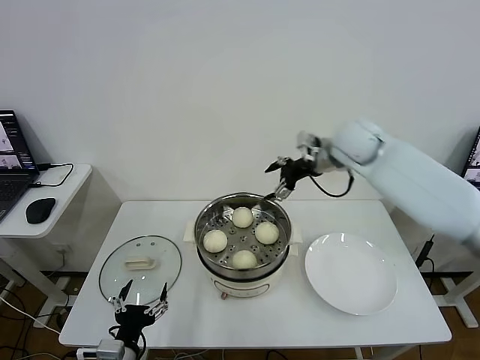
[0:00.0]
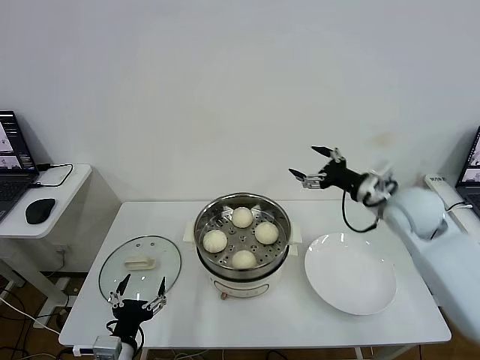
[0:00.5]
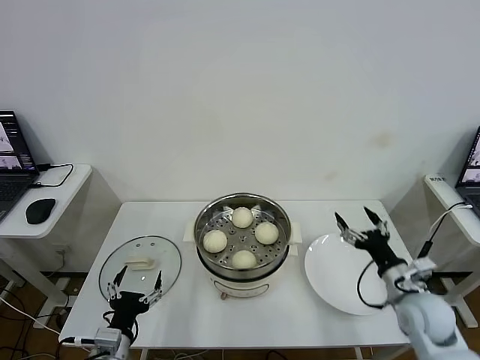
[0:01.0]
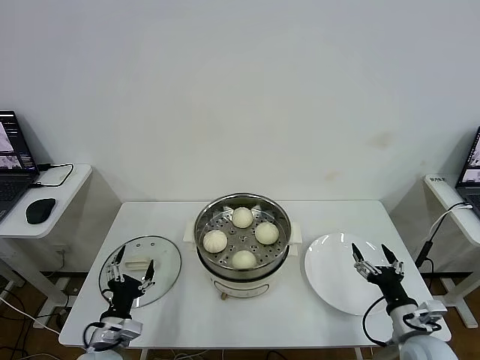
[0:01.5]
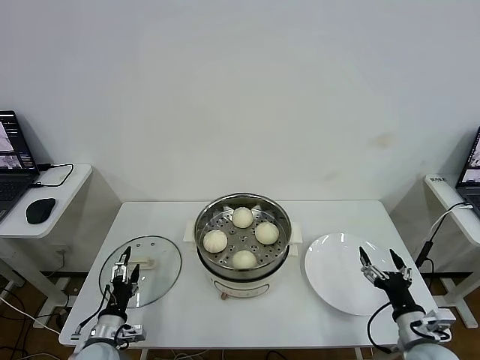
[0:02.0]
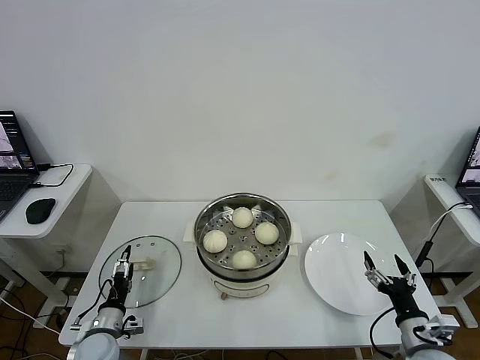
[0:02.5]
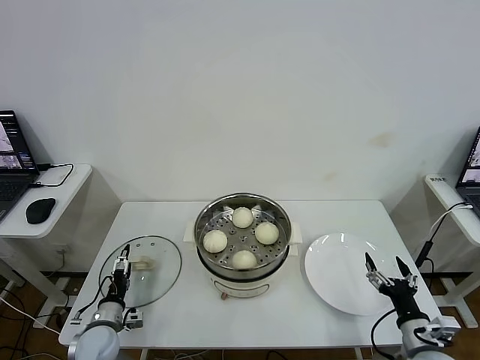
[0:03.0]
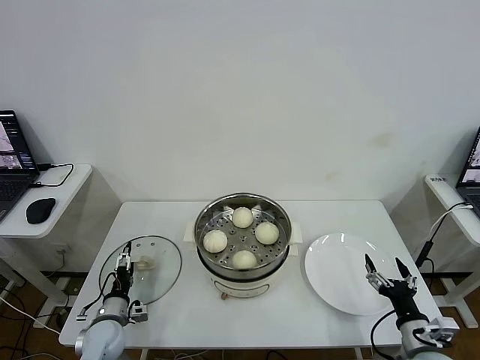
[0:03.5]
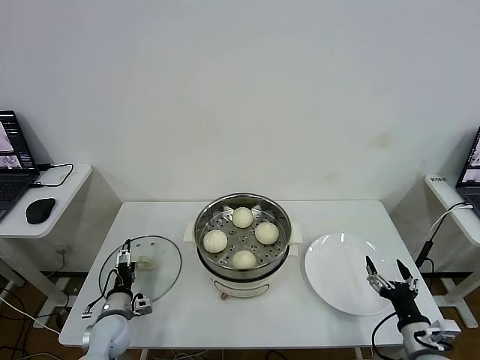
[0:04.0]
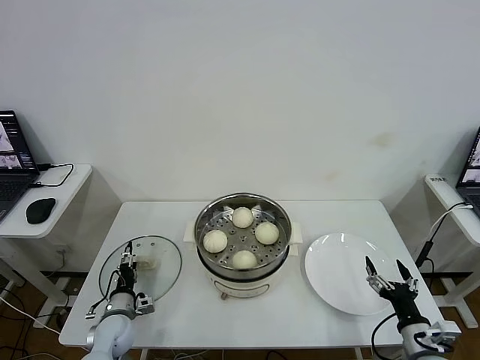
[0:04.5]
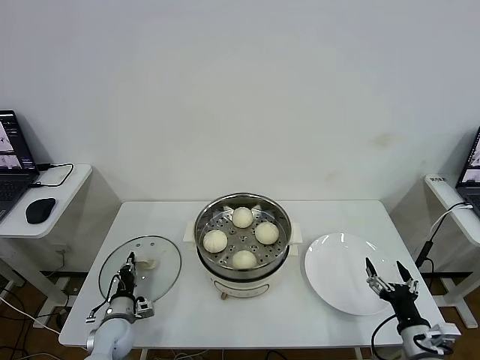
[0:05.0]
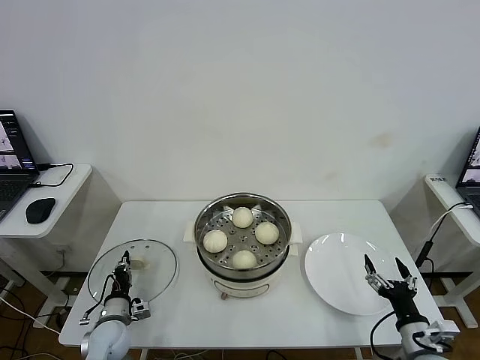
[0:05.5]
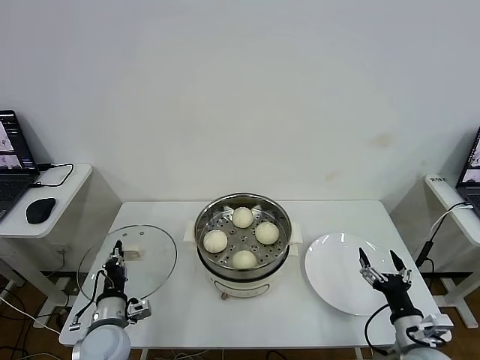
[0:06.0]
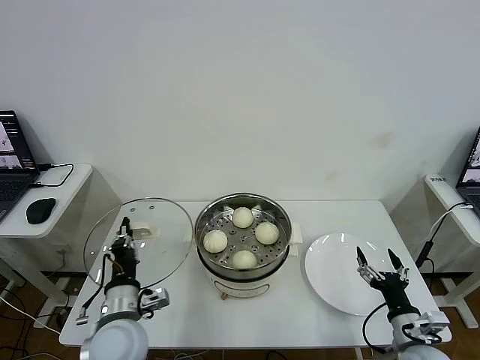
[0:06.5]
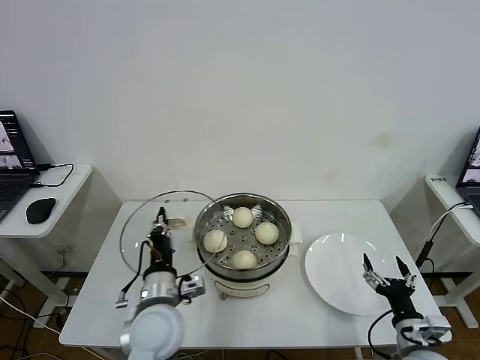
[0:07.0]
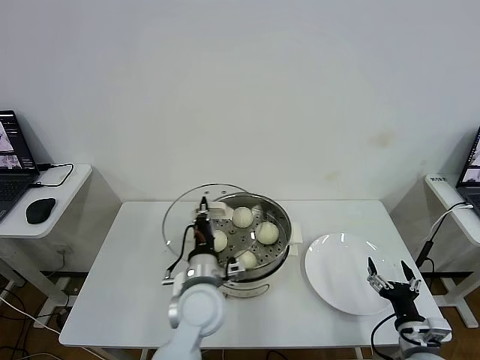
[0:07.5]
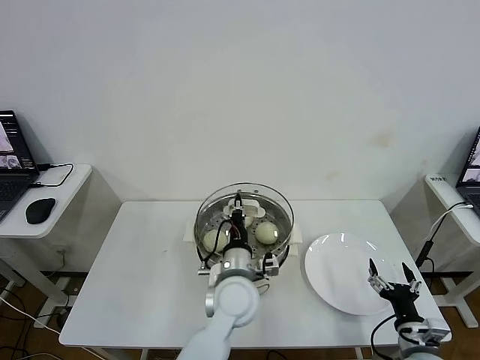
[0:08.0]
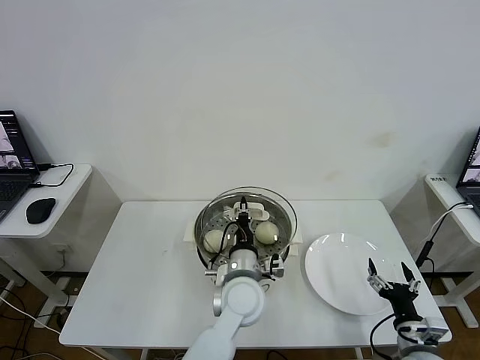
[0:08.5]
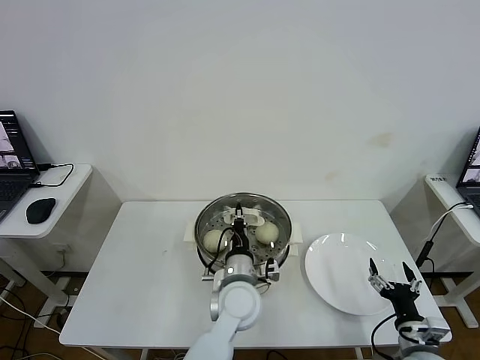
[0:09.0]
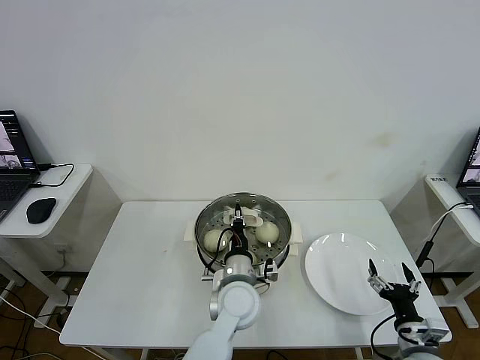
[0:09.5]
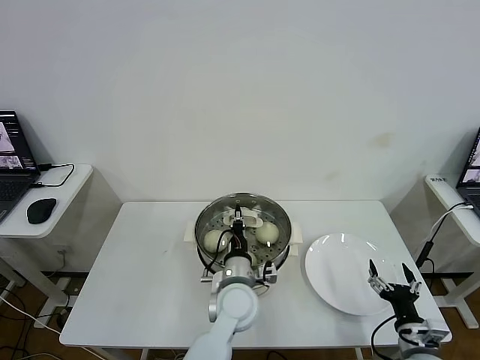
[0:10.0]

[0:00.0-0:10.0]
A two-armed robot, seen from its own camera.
Step, 0:00.0 to 0:05.0: Grasp the pot lid with left gripper.
0:00.0 to 0:02.0: The left gripper goes some 15 cm forward, downward and to the left. Meanwhile the right gripper shifts some 40 cm backward and downward.
0:02.0 to 0:04.0: The left gripper goes some 5 cm forward.
0:04.0 to 0:06.0: The left gripper moves upward, about 5 cm, and closes.
0:06.0 to 0:08.0: The left gripper moves to the right and upward, roughly 30 cm.
0:08.0 to 0:10.0: The grippers move only a little.

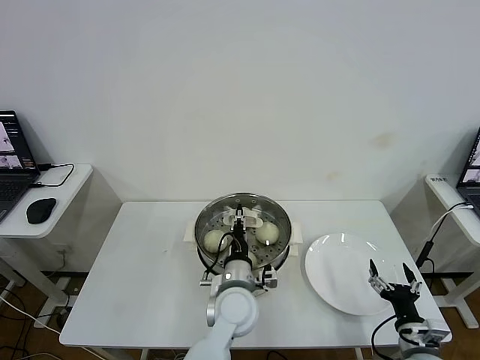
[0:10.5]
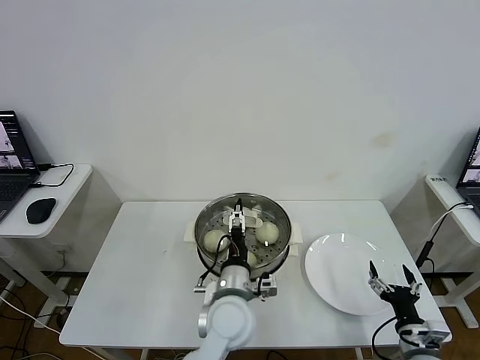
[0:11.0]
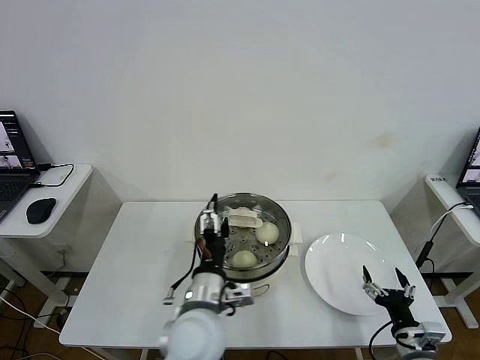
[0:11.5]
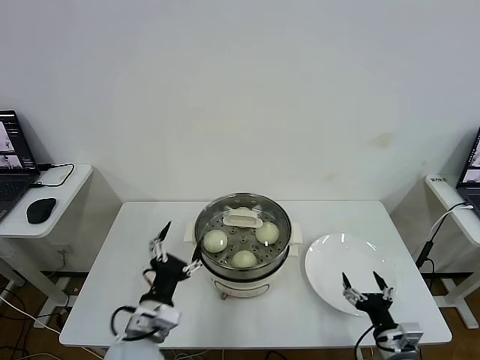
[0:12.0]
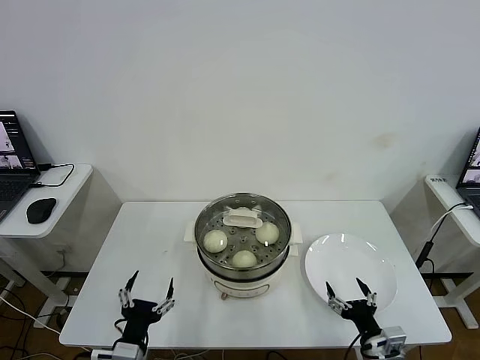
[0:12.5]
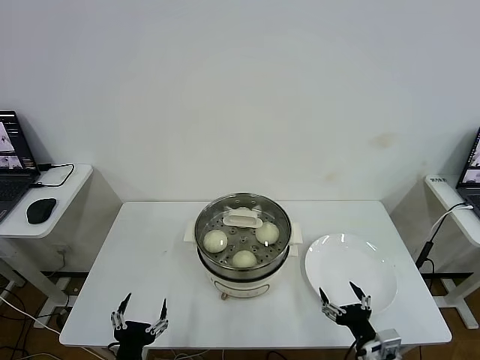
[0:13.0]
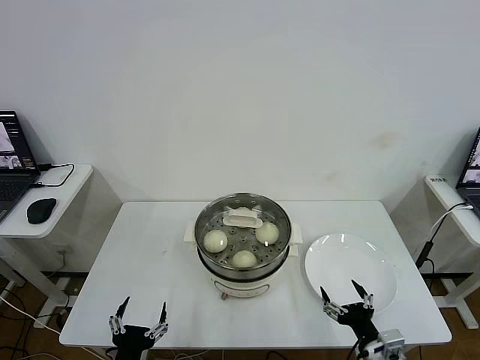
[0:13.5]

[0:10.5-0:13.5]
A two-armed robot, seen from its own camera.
0:10.5 to 0:12.0: The left gripper moves to the left and backward, about 20 cm, and opens.
0:12.0 to 0:13.5: The left gripper heads backward, downward and to the left, covering some 15 cm; the right gripper changes place by about 5 cm.
